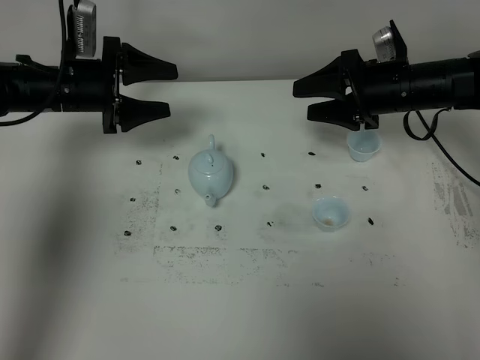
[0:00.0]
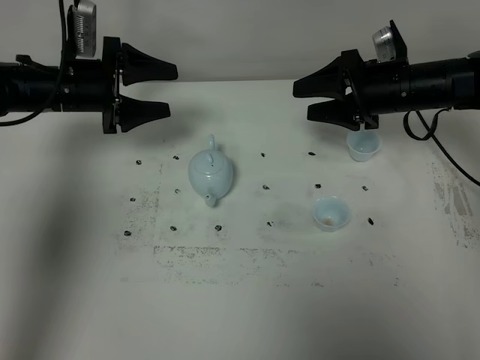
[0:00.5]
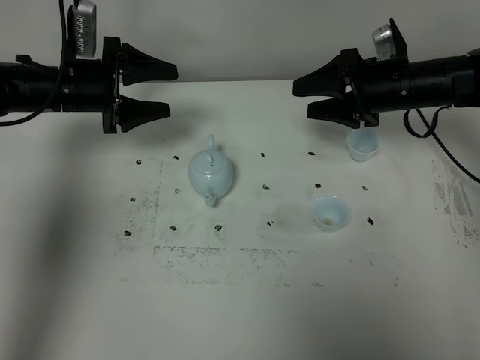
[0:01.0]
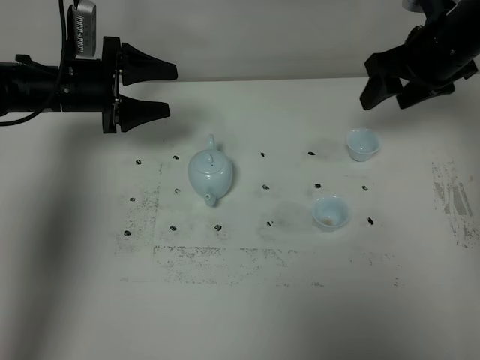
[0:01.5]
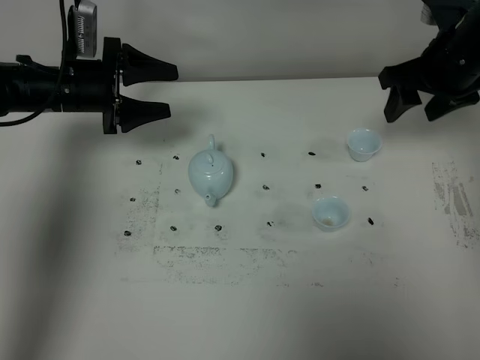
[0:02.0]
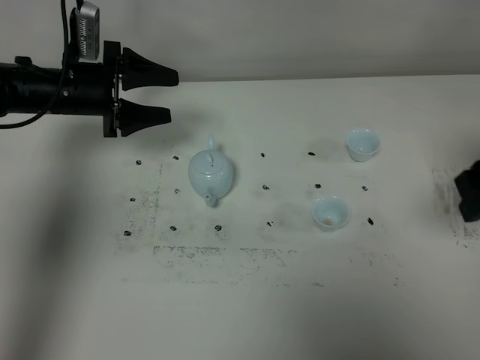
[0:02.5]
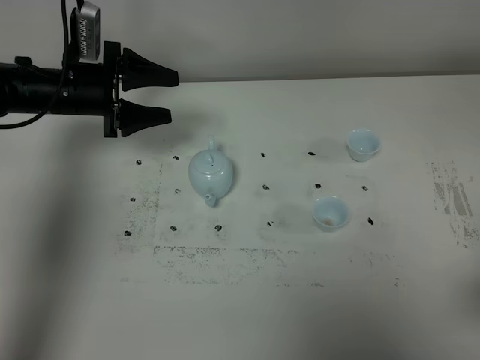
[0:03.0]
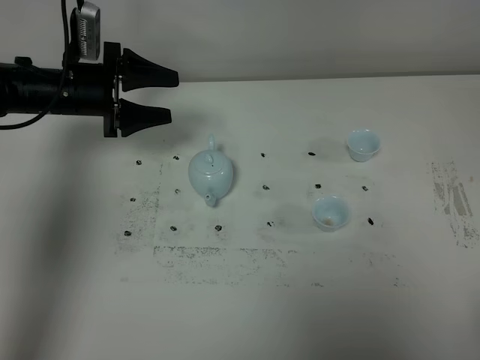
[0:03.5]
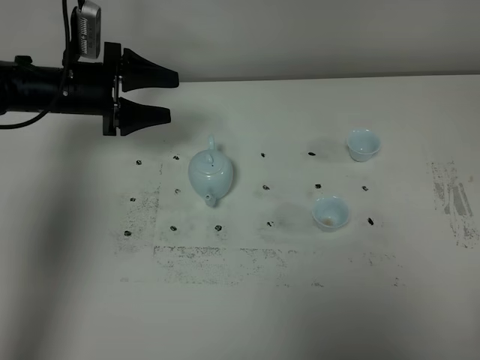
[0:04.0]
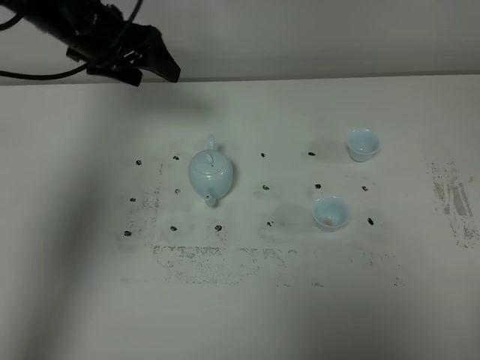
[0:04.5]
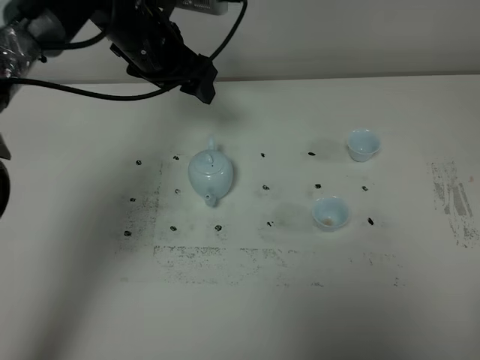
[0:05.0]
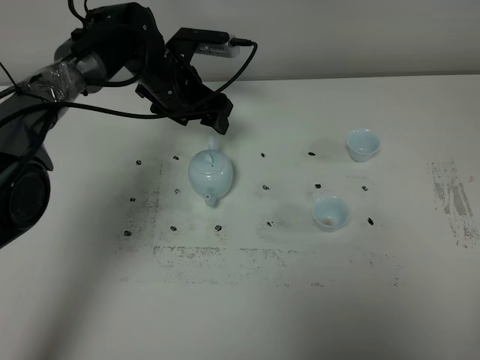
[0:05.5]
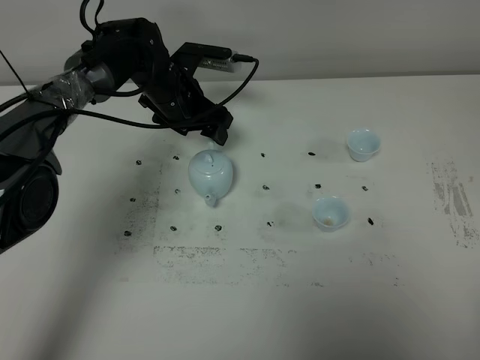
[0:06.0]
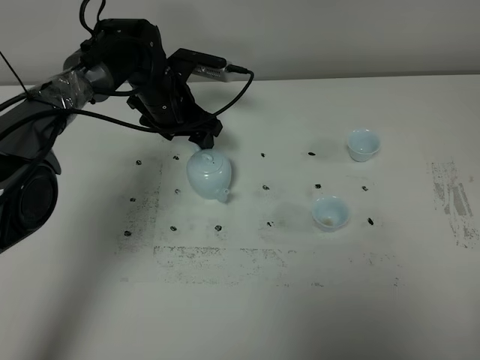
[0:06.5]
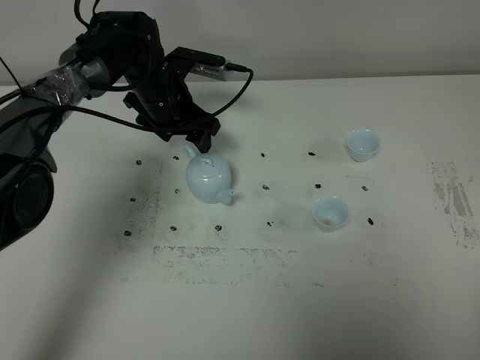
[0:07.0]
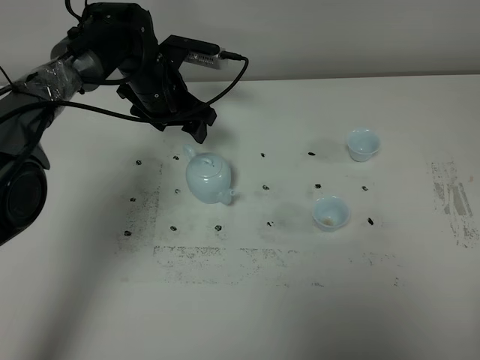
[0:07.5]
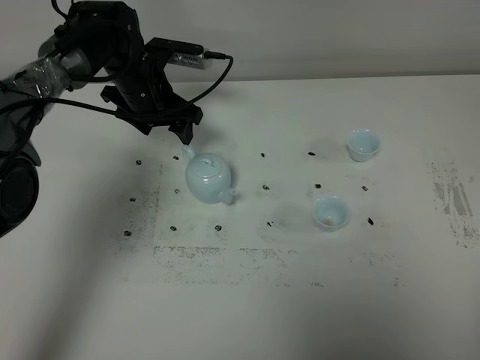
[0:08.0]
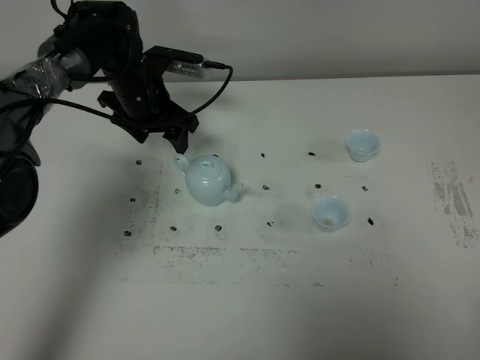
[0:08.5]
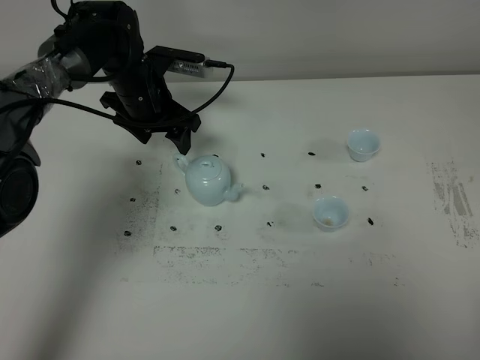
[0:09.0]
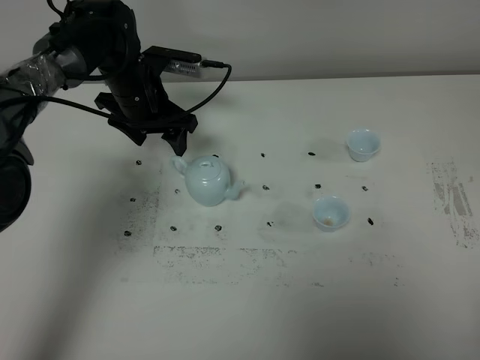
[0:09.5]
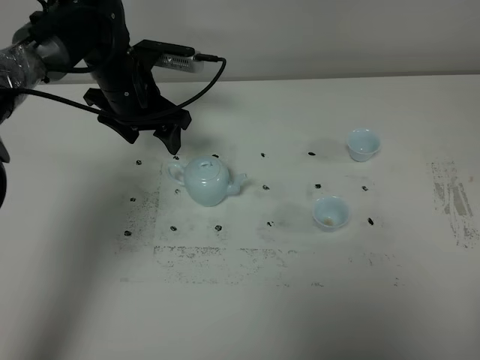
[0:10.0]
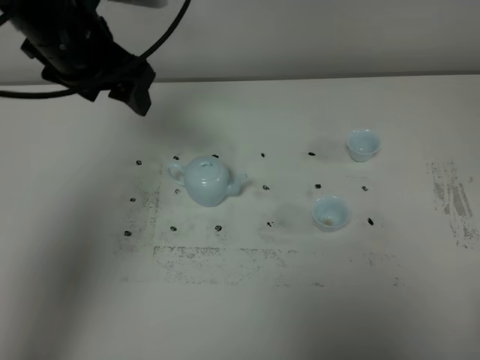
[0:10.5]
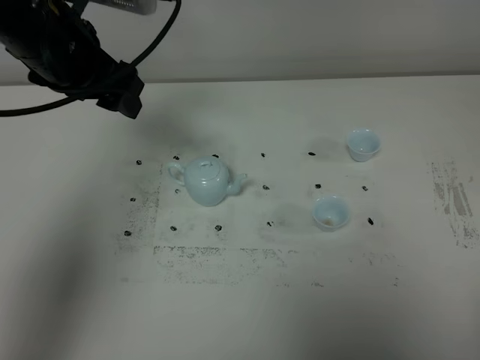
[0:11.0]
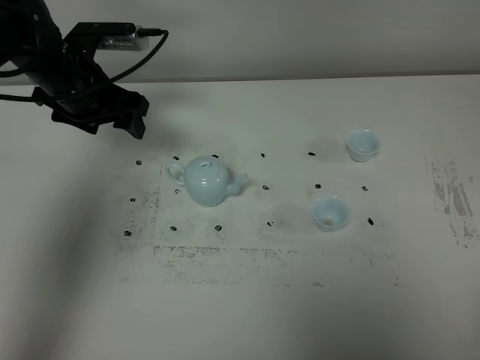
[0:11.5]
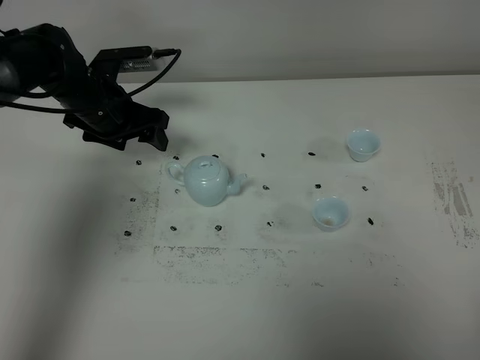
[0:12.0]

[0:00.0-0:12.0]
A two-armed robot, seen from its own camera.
Task of the whole recording: grasp the blue porcelain teapot and pour the tea into the two blue porcelain teacups one by one, put the blue porcelain teapot back in its original place.
0:00.0 to 0:02.0: The right gripper is displaced upward and to the right by about 10 cm.
0:02.0 to 0:04.0: The right gripper heads backward, covering roughly 40 cm.
0:04.0 to 0:06.0: The left gripper heads to the right and forward, covering about 15 cm, and goes upward and returns, about 10 cm each way.
0:06.0 to 0:08.0: The grippers move only a little.
0:08.0 to 0:10.0: The grippers make only small movements.
0:10.0 to 0:12.0: The left gripper goes upward and returns, about 10 cm each way.

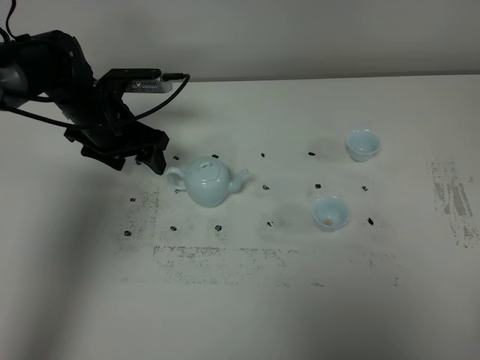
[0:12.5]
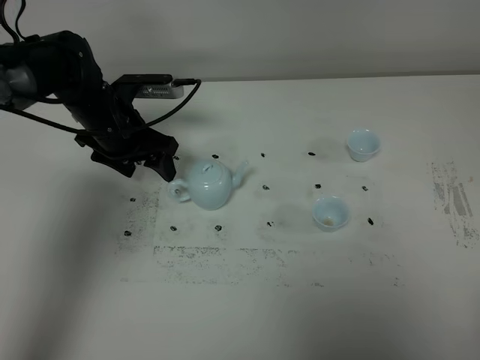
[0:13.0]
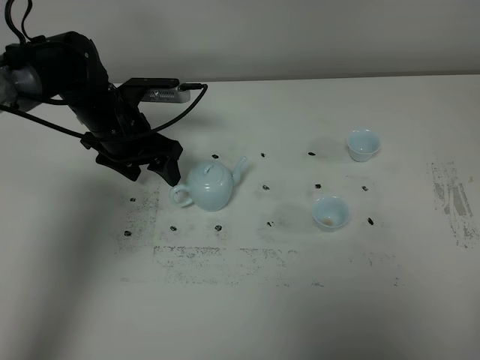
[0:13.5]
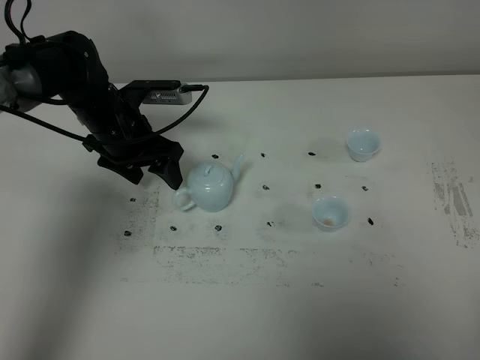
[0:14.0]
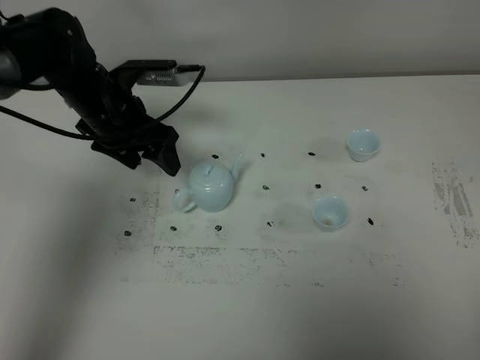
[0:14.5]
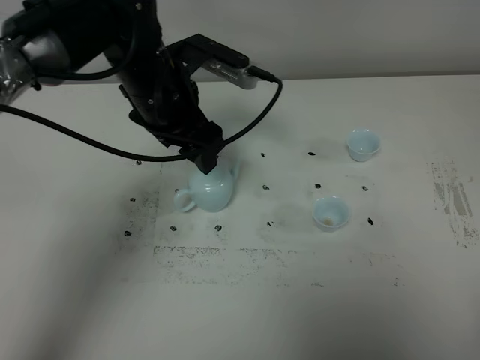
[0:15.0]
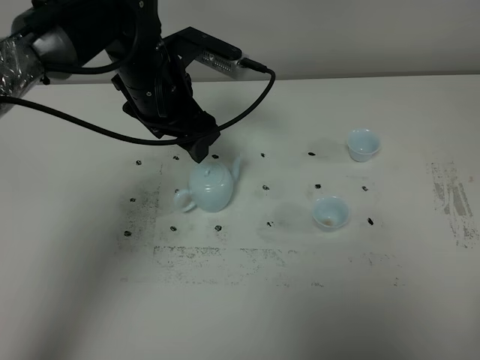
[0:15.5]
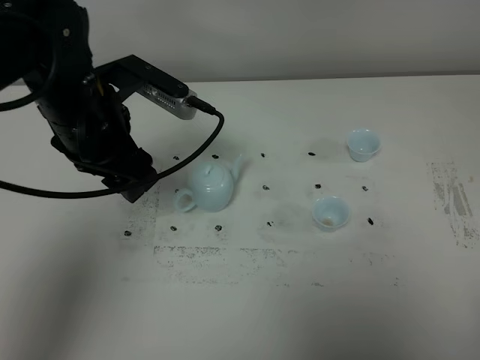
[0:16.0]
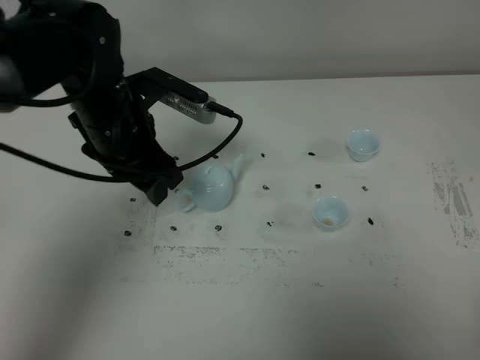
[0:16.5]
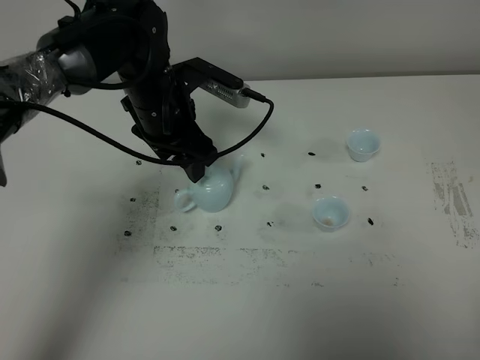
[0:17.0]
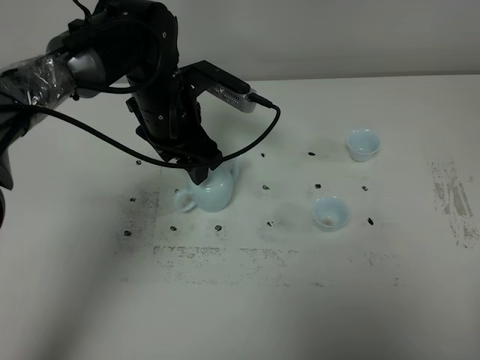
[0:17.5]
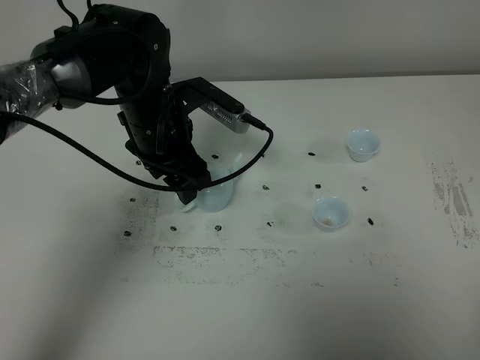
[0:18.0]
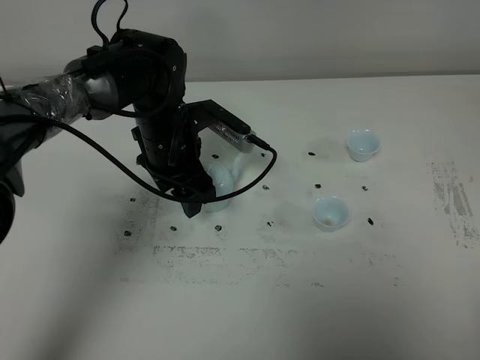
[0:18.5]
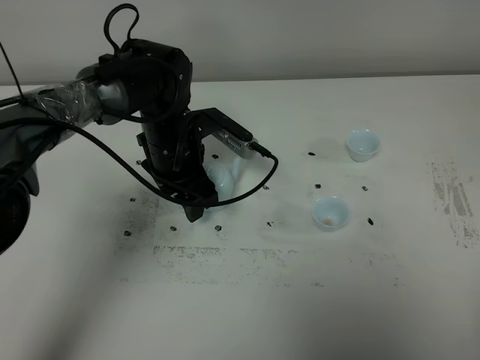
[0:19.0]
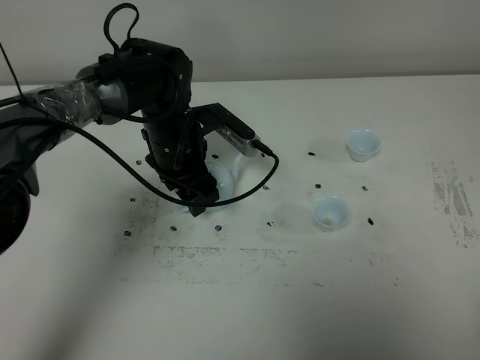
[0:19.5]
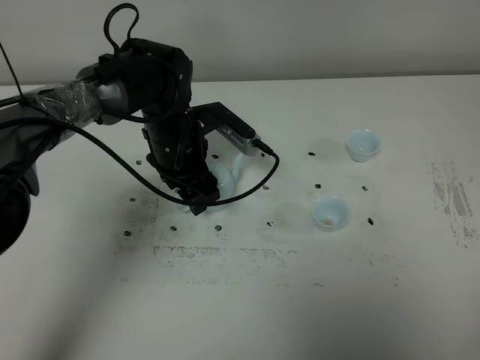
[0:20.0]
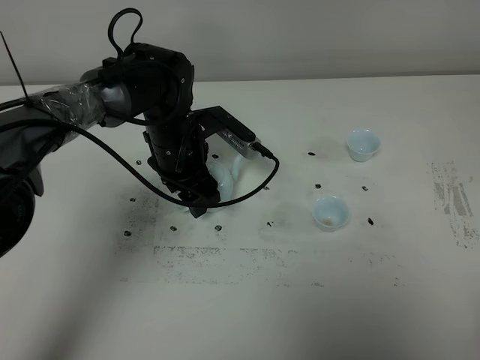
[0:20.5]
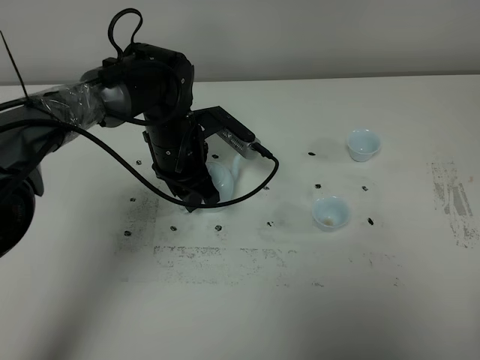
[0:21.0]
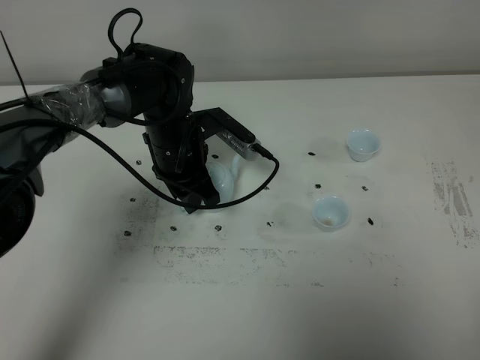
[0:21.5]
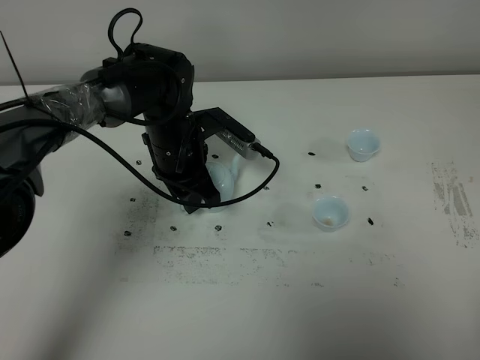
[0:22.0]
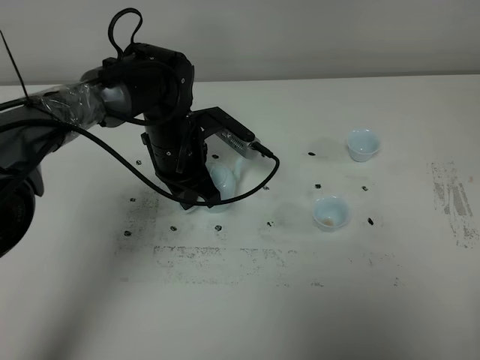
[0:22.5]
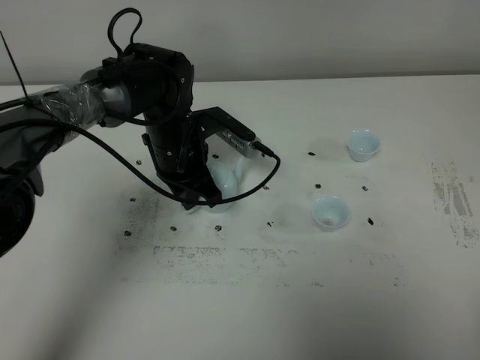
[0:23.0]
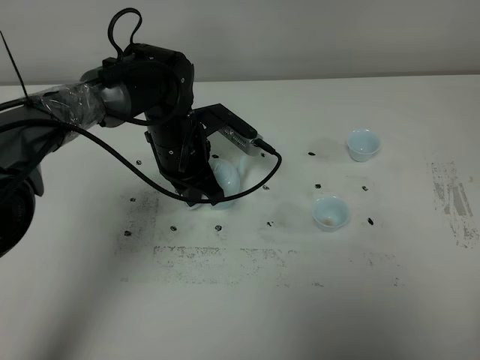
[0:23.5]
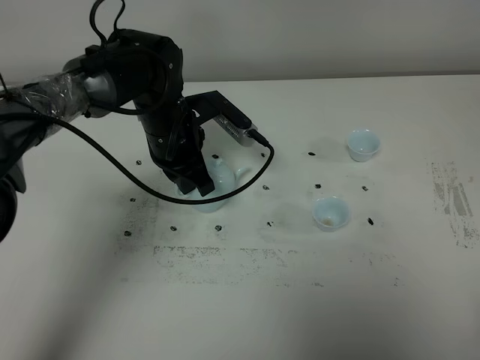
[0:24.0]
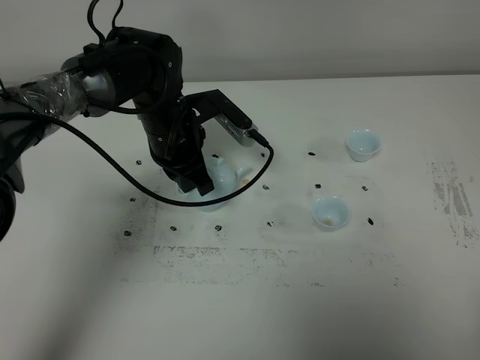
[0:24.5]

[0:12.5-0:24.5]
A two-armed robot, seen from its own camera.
Task of the whole recording: grasp the blue porcelain teapot and pour the tea into the two blue porcelain teacups one by one, put the blue porcelain teapot back in its original place.
0:12.5 to 0:14.5: The left gripper moves upward, approximately 5 cm.
0:14.5 to 0:16.5: The left gripper moves backward, roughly 5 cm.
0:16.5 to 0:18.5: The left gripper shifts roughly 5 cm downward.
0:18.5 to 0:20.5: There are only small adjustments of the grippers.
0:20.5 to 0:22.5: The left gripper closes.
0:22.5 to 0:24.5: The grippers move only a little.

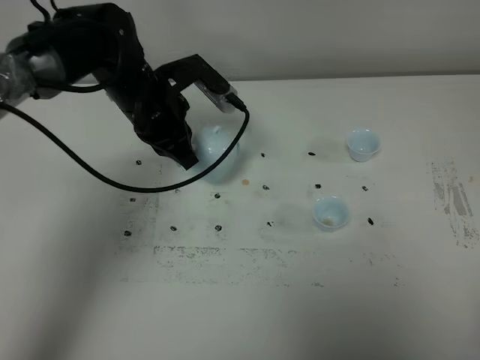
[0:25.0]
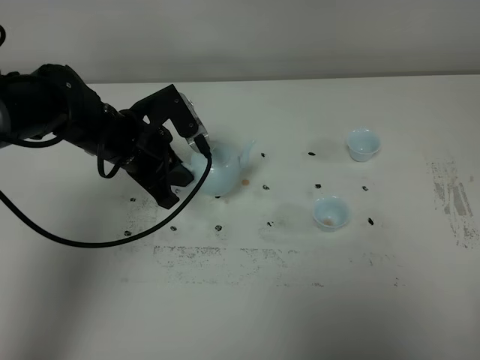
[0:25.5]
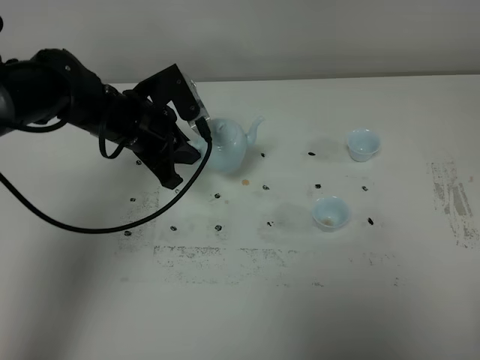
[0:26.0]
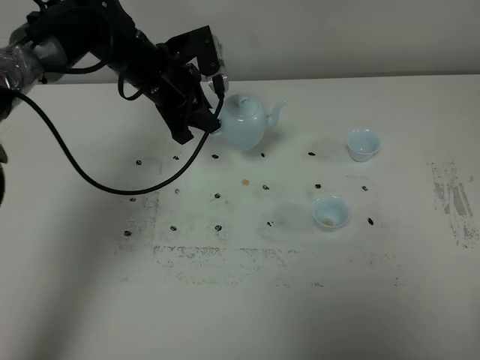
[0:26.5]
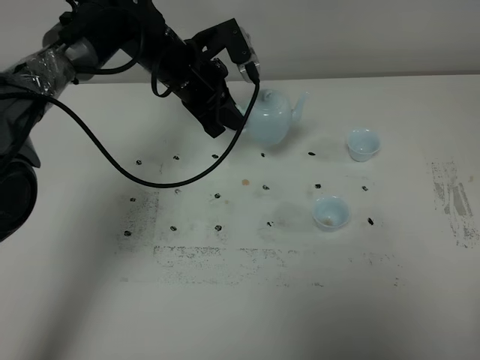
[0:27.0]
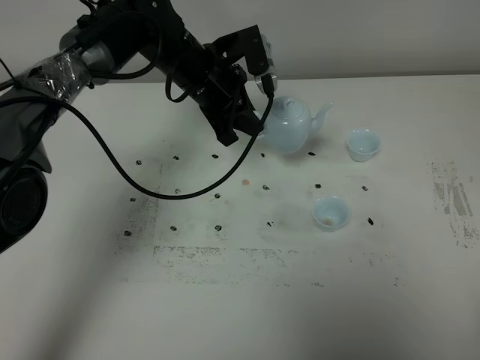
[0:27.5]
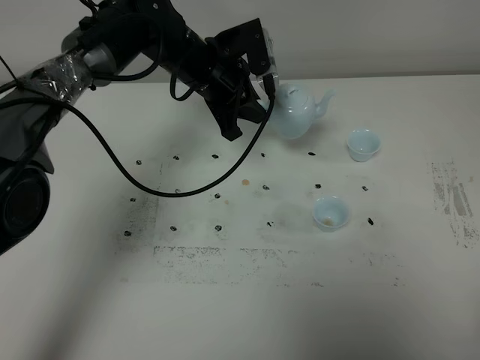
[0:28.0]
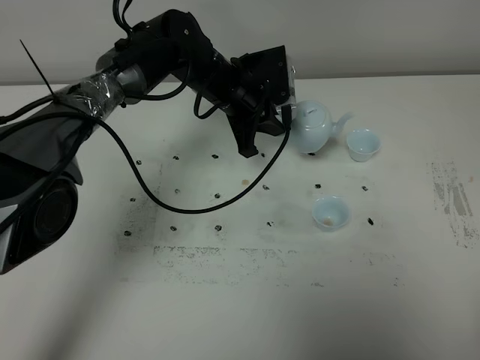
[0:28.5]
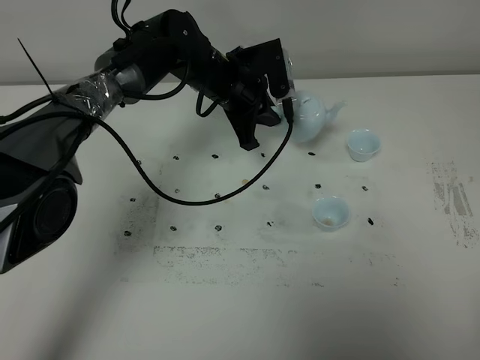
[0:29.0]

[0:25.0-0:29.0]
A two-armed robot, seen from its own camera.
Task of the whole recording: grasp the blue porcelain teapot and pour the tea into the two blue porcelain teacups one by one, put the blue porcelain teapot back in its original place.
0:25.0 to 0:27.0: The left gripper is displaced forward by roughly 5 cm.
0:27.0 to 0:29.0: The left gripper moves approximately 5 cm.
